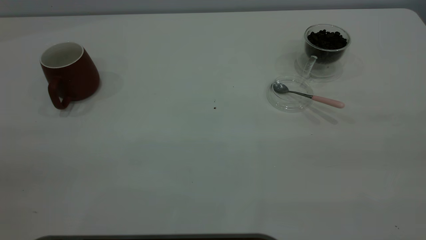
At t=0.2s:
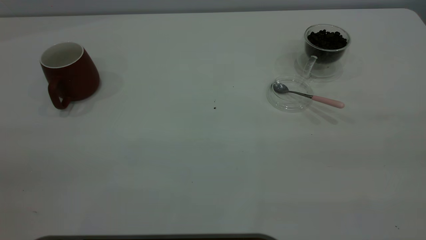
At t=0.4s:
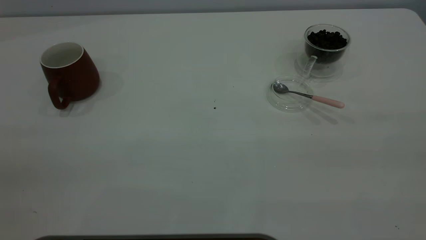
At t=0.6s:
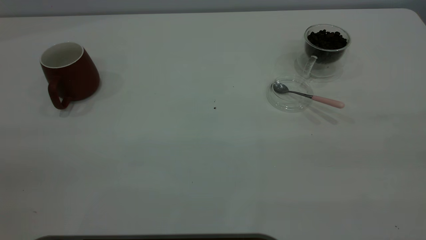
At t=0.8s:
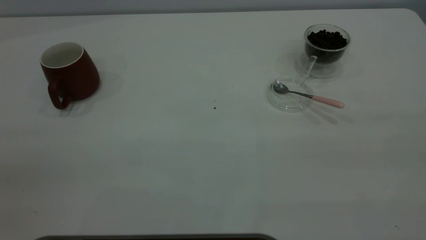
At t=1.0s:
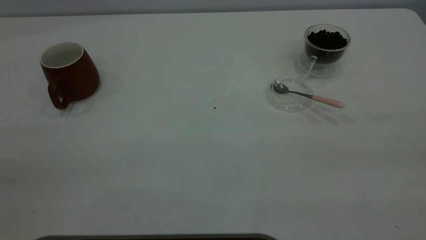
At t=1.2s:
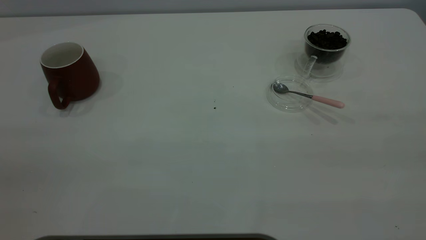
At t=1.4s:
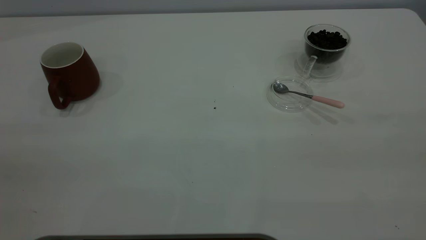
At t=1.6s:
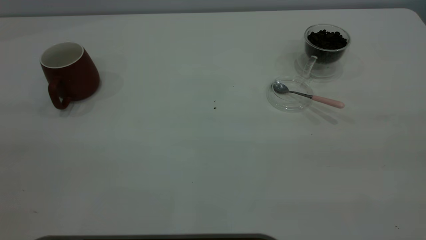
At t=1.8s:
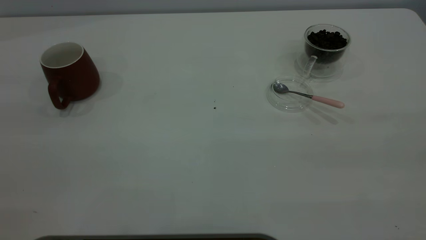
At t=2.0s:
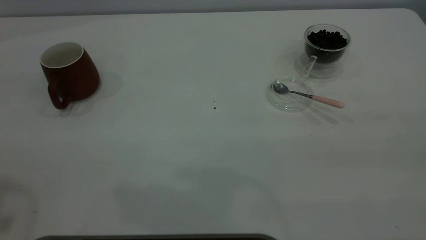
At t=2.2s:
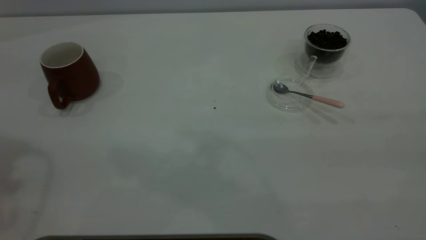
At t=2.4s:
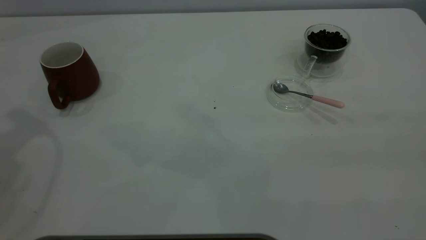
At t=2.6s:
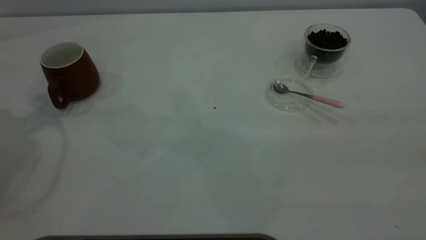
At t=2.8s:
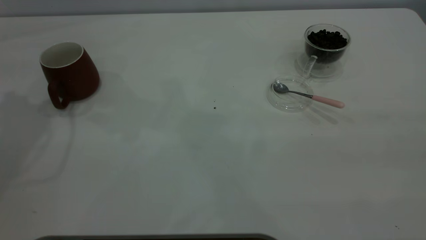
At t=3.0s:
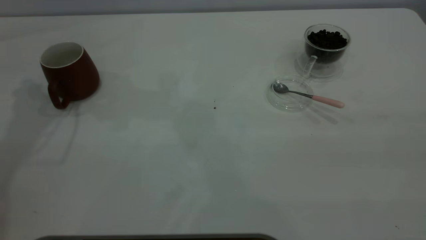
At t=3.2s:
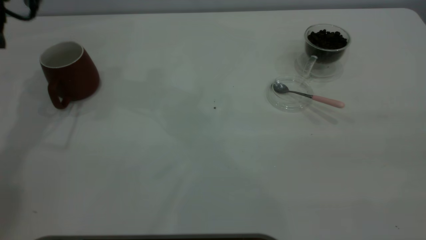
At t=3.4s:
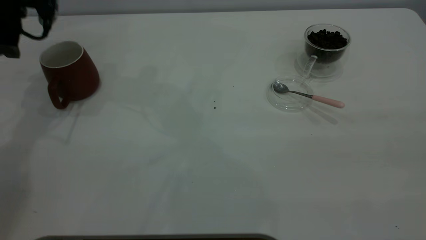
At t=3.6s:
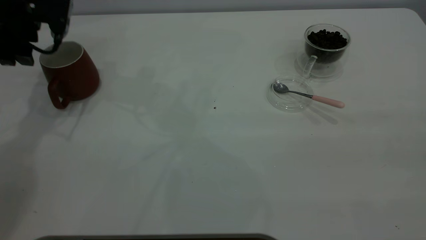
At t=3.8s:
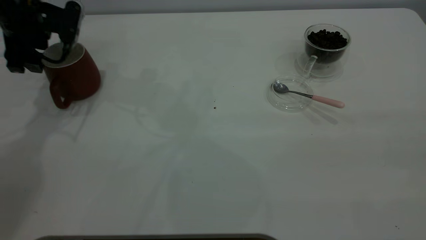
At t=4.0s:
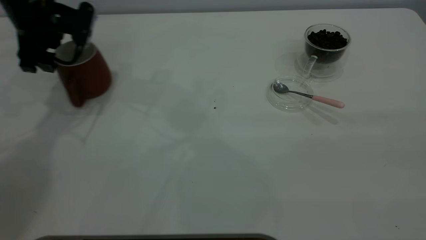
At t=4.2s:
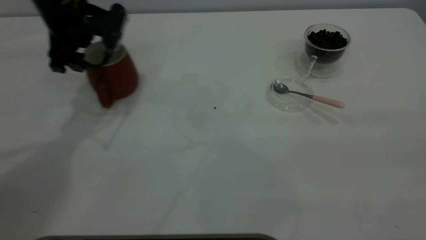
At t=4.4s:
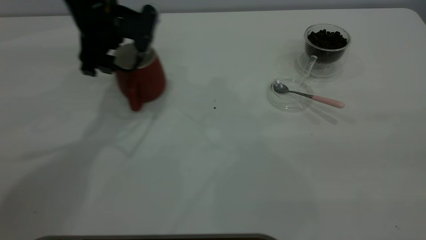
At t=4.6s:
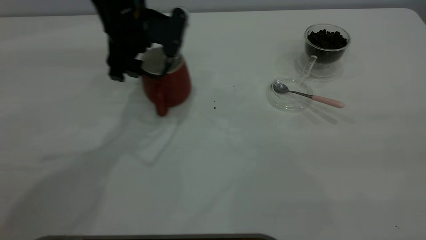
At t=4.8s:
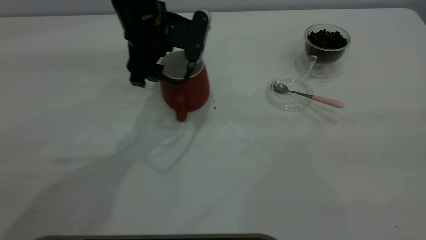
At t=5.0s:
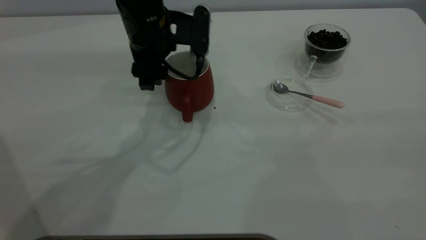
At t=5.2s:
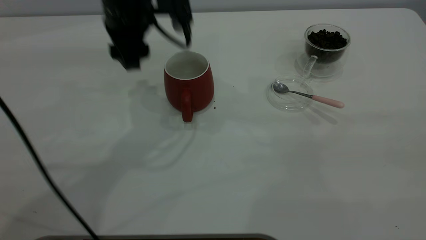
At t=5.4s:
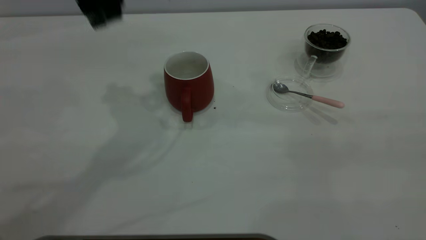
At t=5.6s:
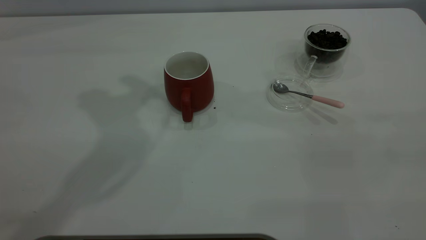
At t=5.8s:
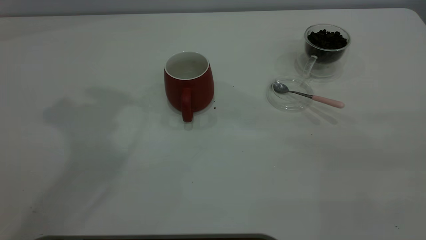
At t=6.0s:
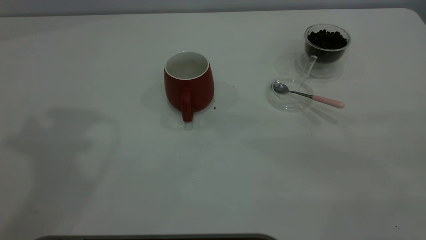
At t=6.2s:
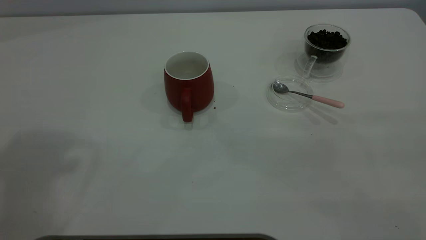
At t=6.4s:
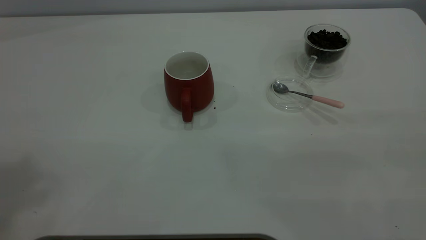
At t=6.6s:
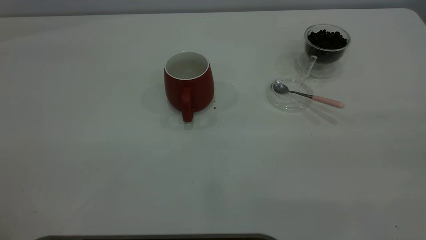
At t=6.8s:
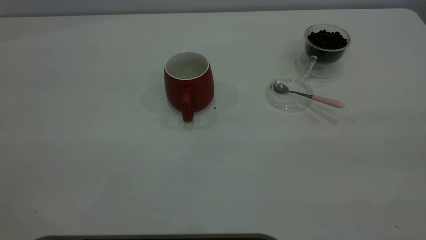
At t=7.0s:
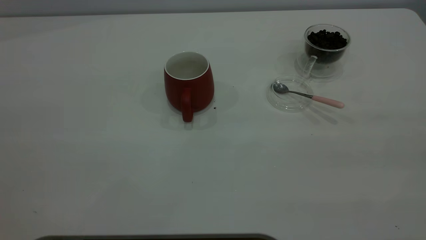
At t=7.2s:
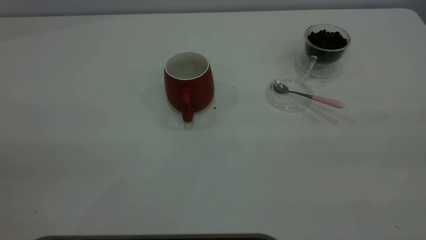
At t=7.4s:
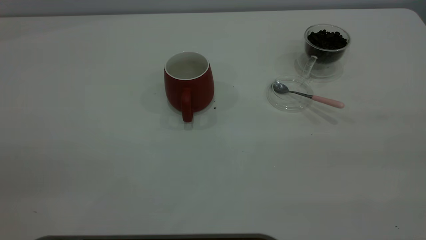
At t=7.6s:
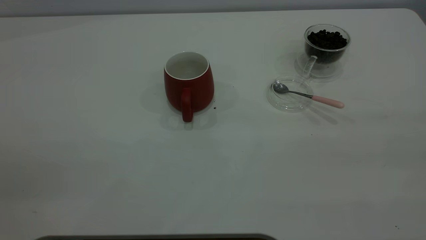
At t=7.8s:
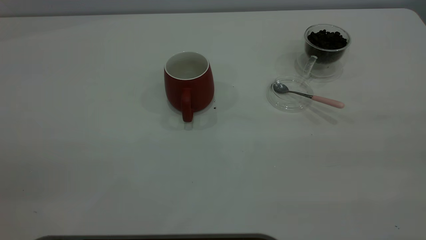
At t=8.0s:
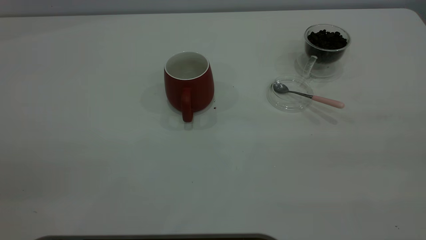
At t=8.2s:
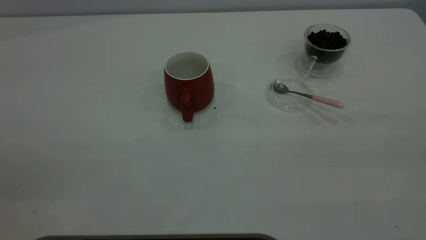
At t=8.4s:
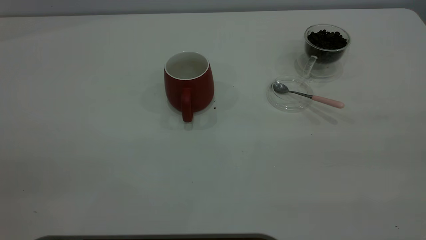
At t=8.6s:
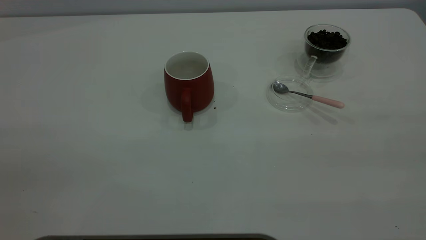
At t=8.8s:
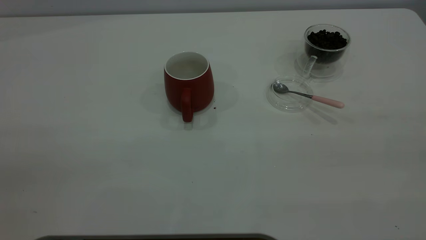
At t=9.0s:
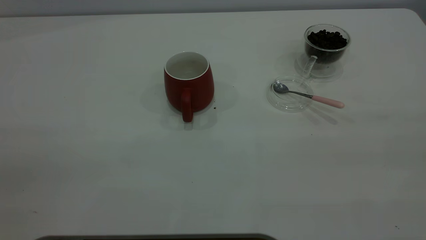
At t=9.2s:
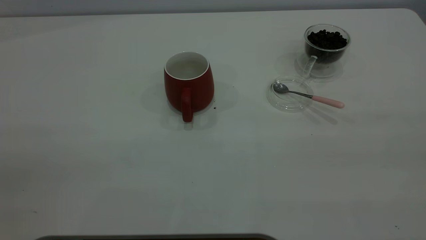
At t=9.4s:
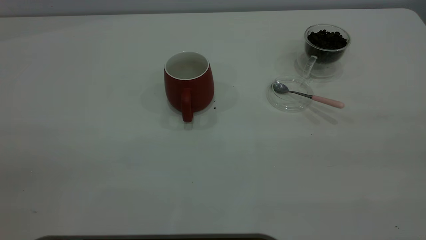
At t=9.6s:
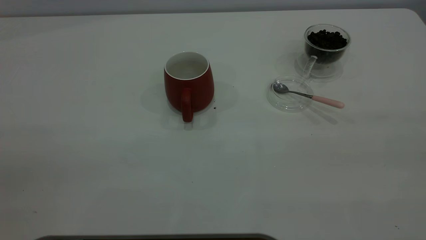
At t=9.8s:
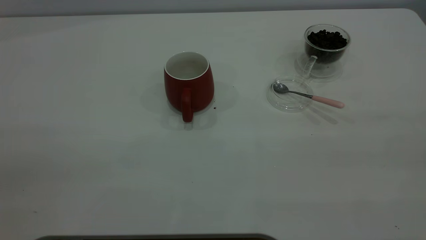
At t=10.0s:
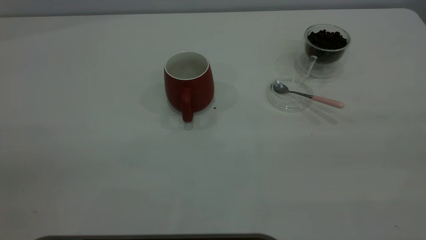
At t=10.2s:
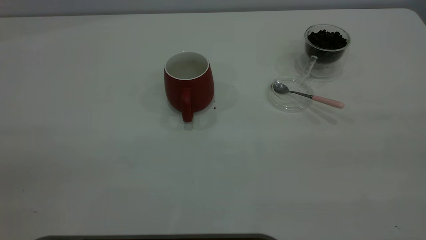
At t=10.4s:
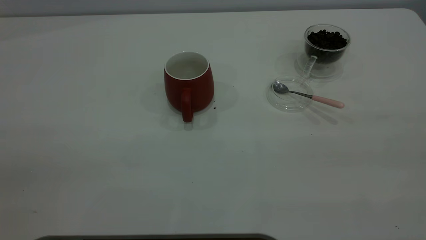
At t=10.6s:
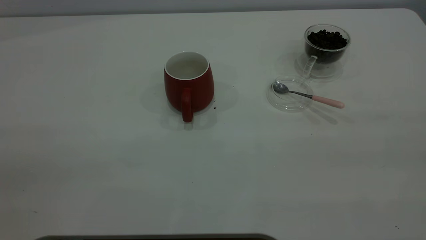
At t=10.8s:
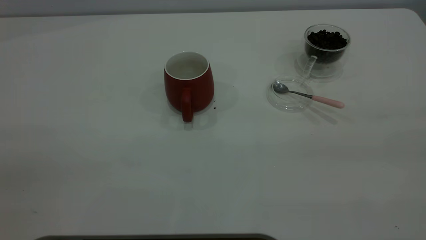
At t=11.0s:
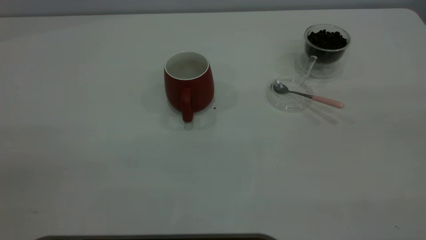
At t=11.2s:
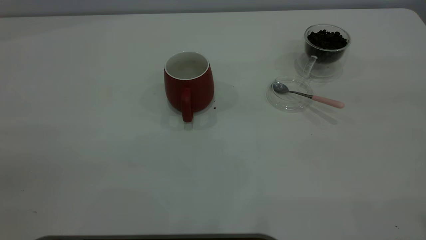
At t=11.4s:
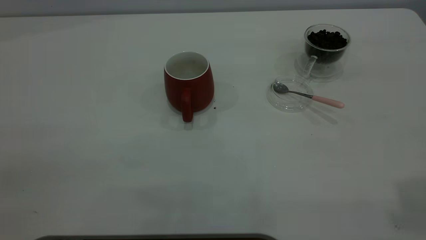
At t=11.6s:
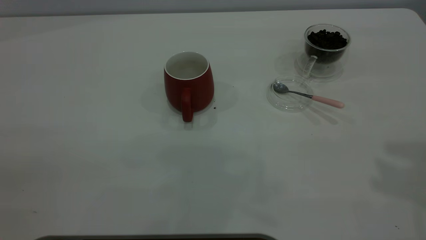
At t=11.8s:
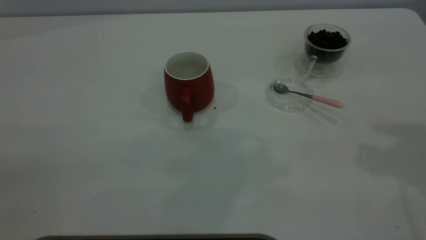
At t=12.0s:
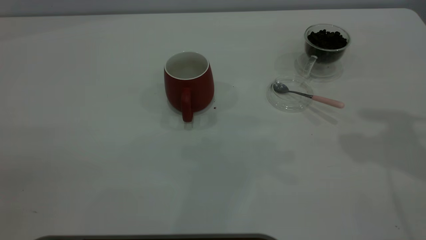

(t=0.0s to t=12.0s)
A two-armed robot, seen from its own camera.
Task of the whole recording: the left gripper place the red cup in the center of the table, the right gripper take the pink spoon from the cup lid and scoop out the coffee beans from the coffee cup and put them into the red cup, the right gripper put the spoon back into the cup lid.
Step, t=0.0s - t=5.0s: Move the cup to the center of view.
t=3.0s - t=4.4s: The left gripper is displaced to the right and downward by approximately 20 cm.
t=4.4s - t=6.0s: The left gripper shifts roughly 35 cm upward and backward.
t=9.0s - t=10.4s: Both grippers stay about where they are.

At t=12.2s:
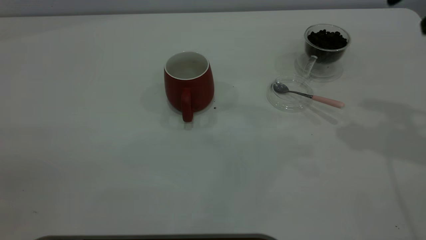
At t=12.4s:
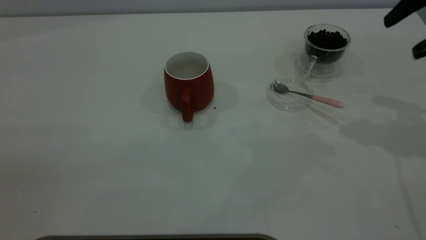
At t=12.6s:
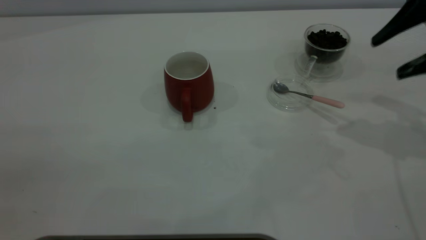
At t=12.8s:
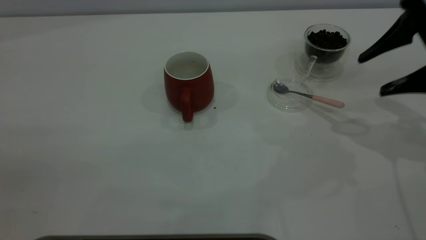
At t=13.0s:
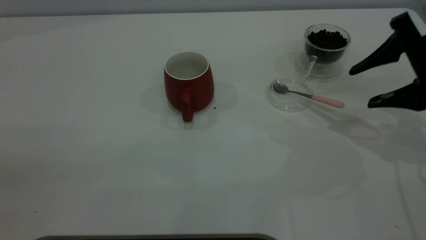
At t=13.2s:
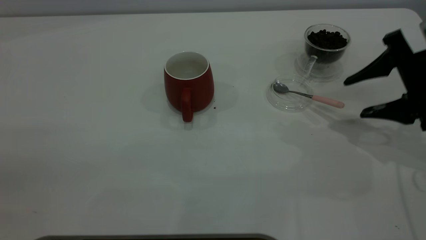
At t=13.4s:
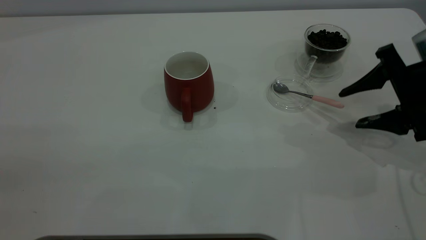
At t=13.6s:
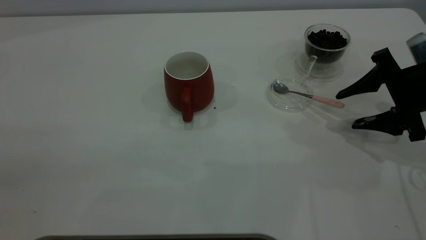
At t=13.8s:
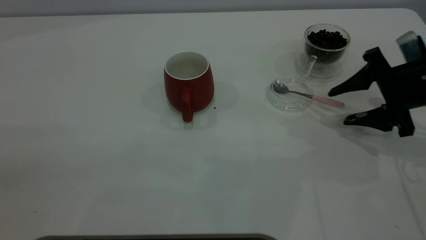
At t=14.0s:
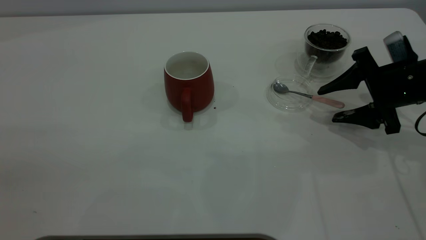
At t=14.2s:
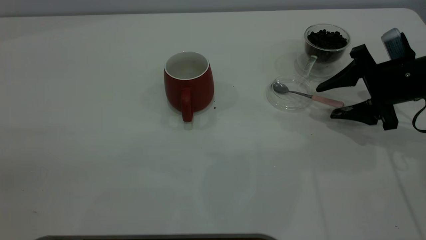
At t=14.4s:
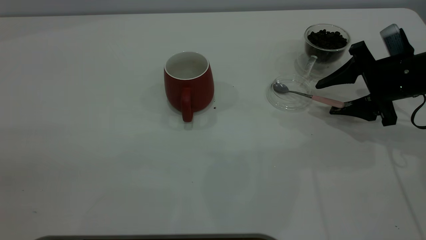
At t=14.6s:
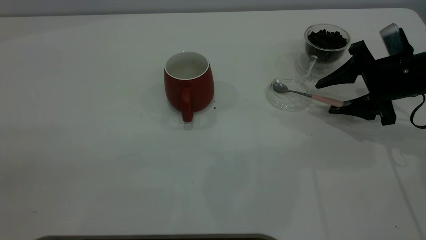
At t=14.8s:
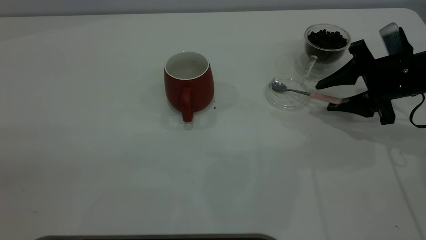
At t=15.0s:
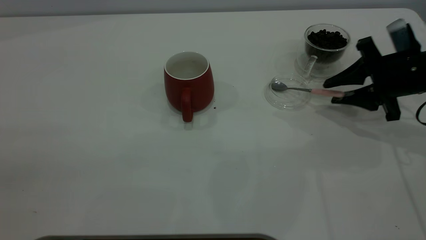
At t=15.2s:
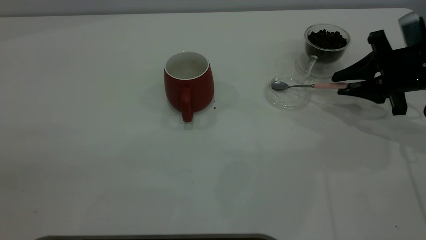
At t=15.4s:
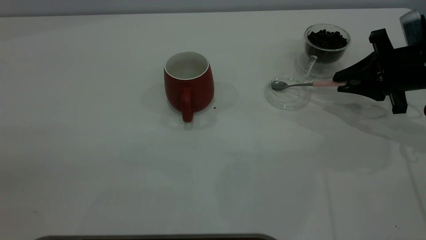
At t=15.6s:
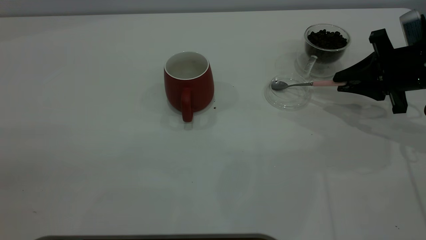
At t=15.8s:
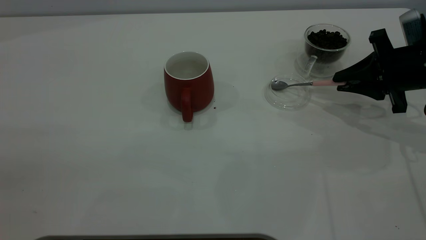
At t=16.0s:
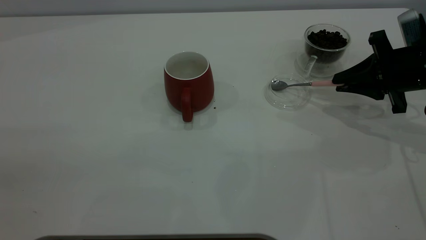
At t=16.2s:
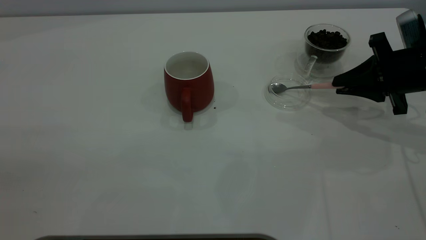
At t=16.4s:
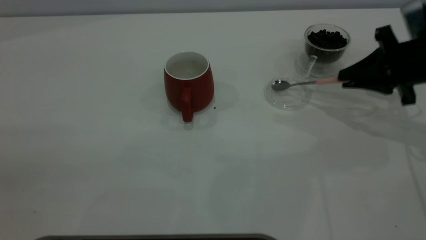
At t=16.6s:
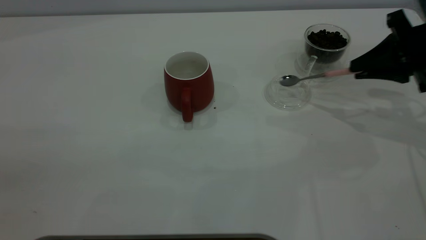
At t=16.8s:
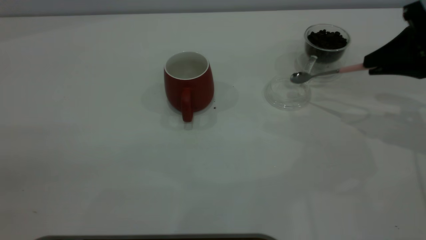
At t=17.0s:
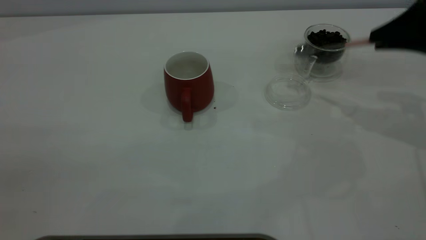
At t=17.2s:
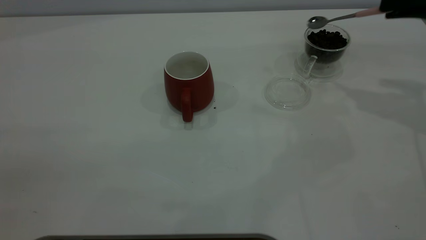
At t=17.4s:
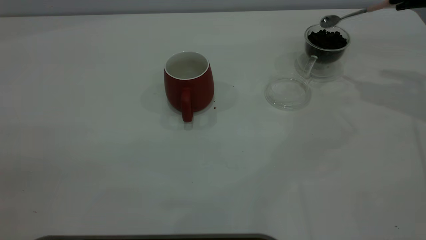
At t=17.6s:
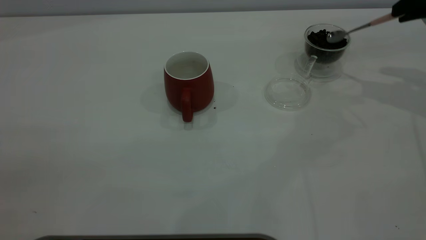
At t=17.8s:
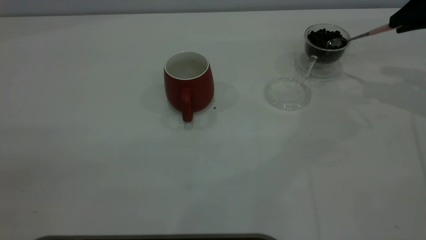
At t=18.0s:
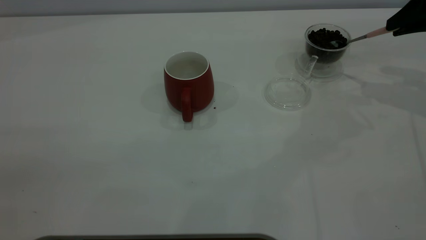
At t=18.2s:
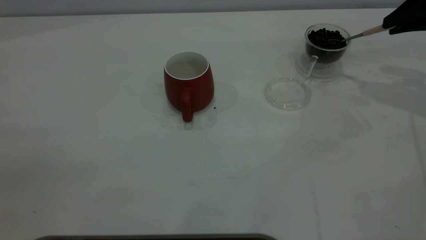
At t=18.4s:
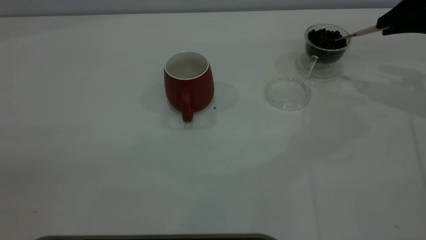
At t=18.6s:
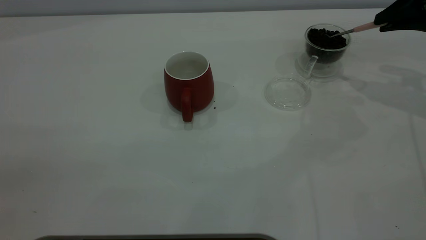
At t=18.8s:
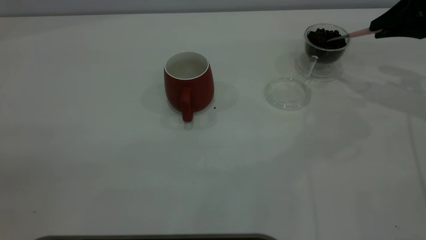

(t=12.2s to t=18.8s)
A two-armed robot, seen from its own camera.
Task of the whole recording: the left gripper place the red cup in the center of the table, the right gripper take the pink spoon from the cup lid and scoop out the coffee beans from the coffee cup and put them into the red cup, the right gripper put the spoon back into the cup lid.
Step, t=12.2s - t=16.8s: Pick up the spoon.
t=12.2s - t=13.8s: The right gripper moves downward, about 20 cm.
t=13.8s - t=15.4s: The right gripper closes its fingers.
t=15.4s - t=17.2s: The right gripper goes about 15 cm upward.
t=17.2s - t=18.8s: The right gripper ends up approximately 5 cm from where it was.
